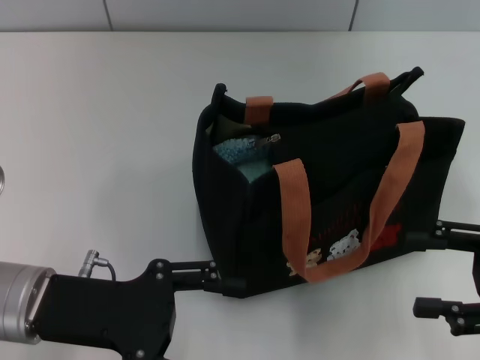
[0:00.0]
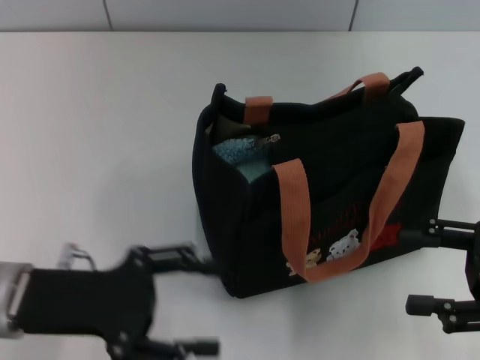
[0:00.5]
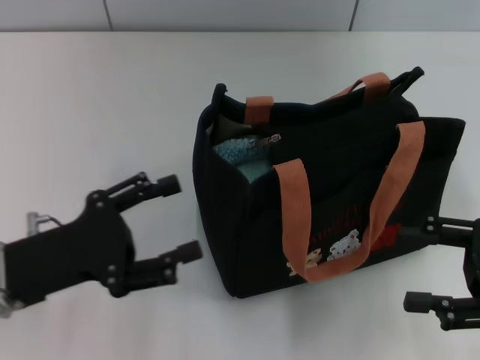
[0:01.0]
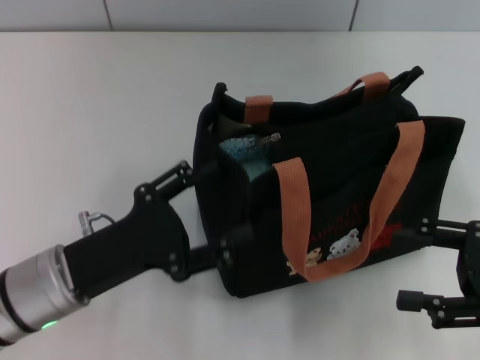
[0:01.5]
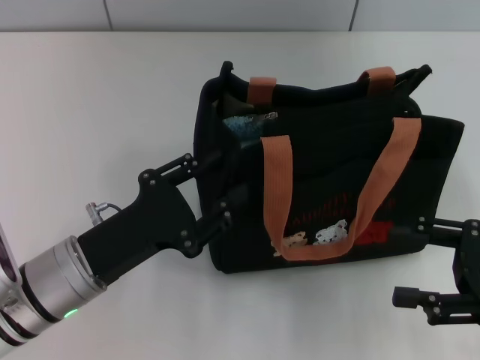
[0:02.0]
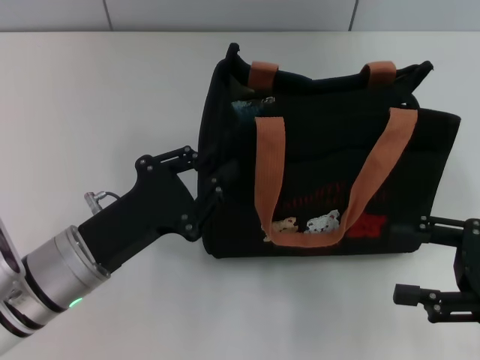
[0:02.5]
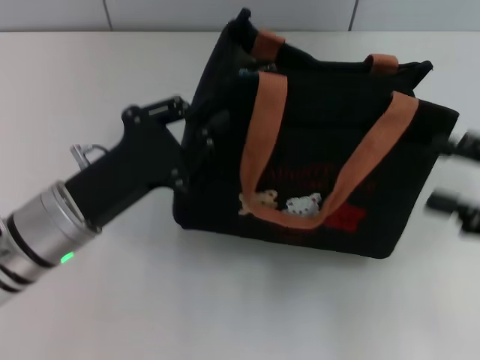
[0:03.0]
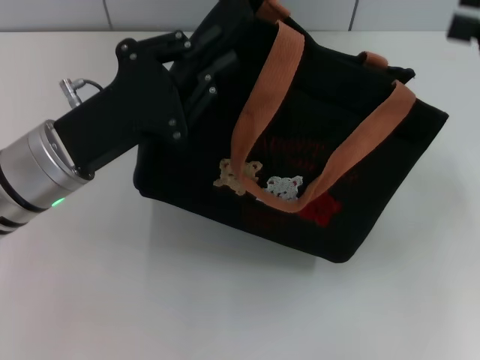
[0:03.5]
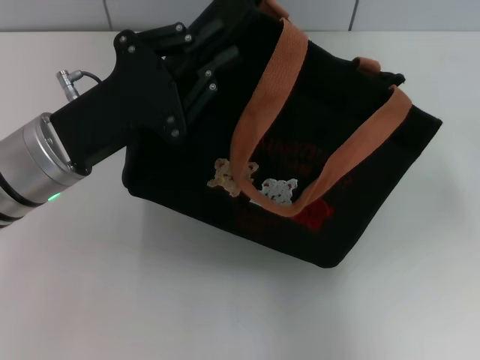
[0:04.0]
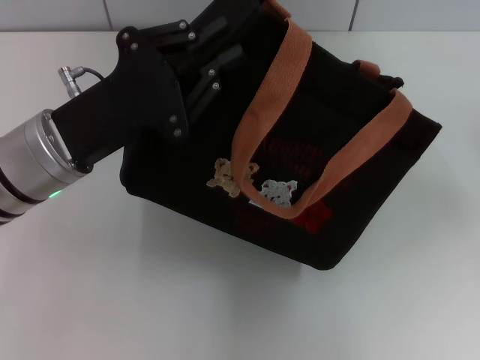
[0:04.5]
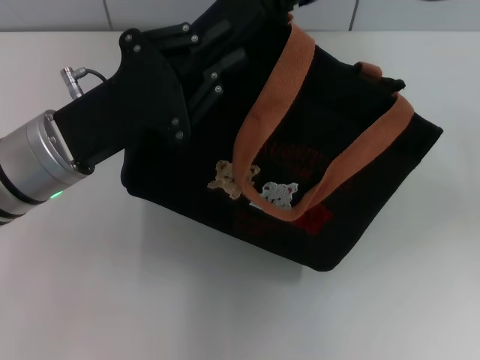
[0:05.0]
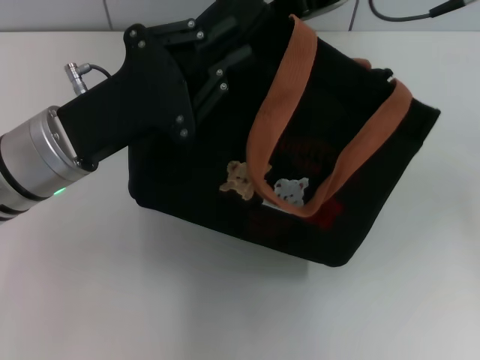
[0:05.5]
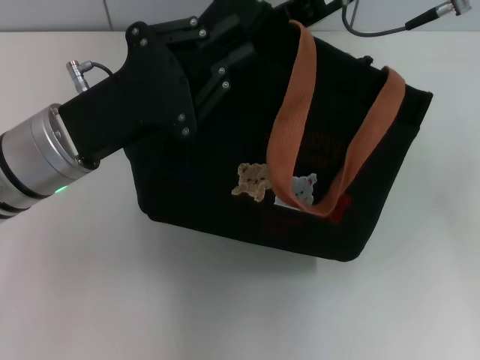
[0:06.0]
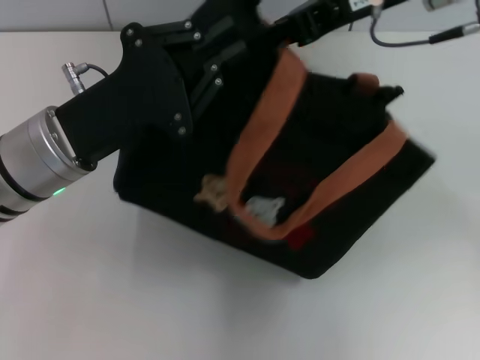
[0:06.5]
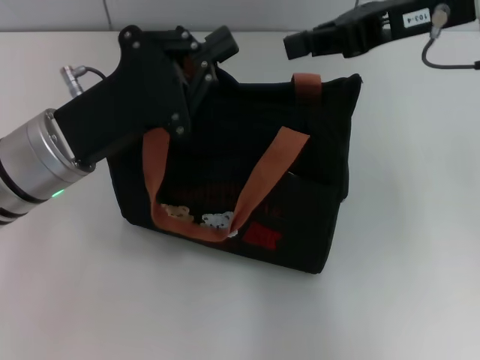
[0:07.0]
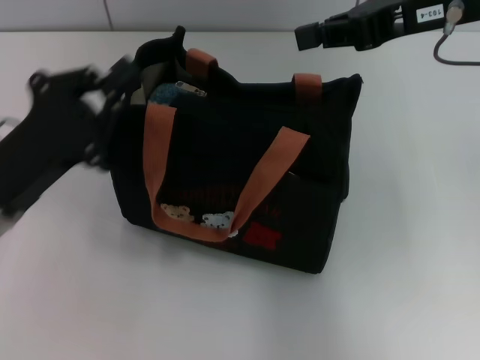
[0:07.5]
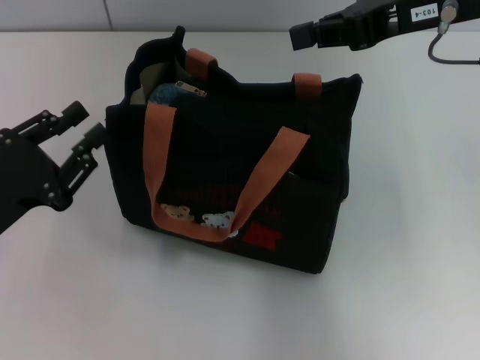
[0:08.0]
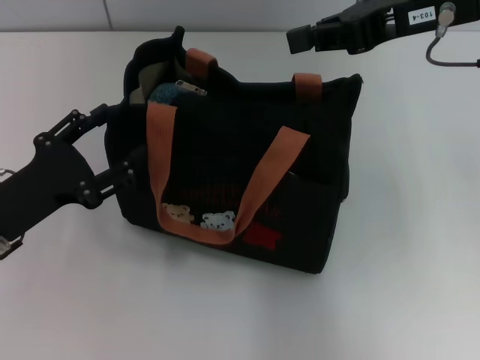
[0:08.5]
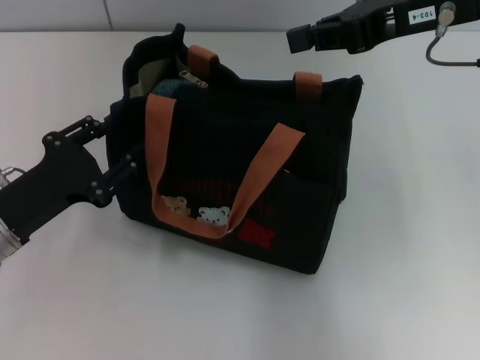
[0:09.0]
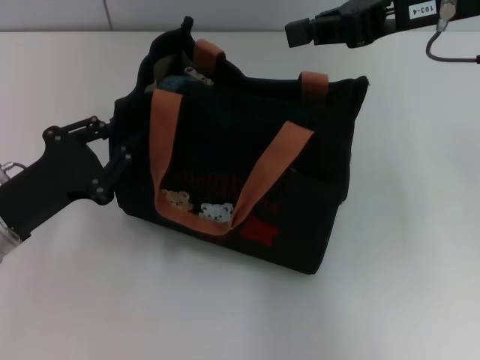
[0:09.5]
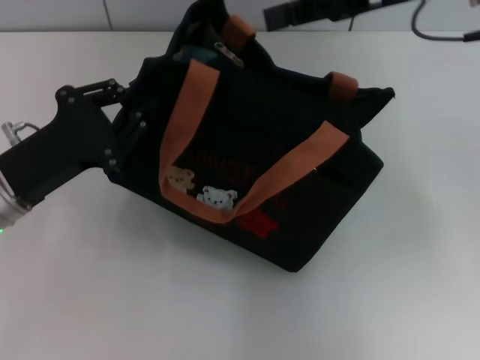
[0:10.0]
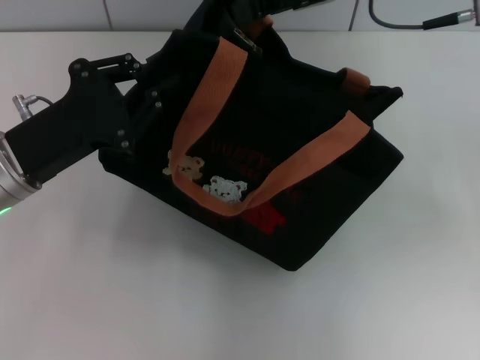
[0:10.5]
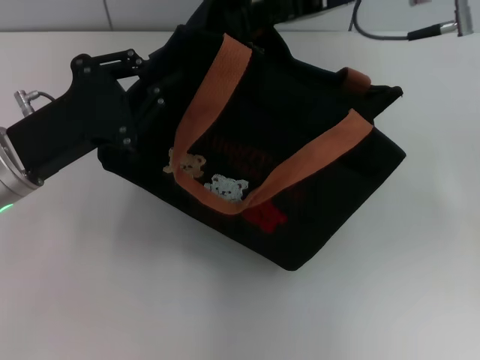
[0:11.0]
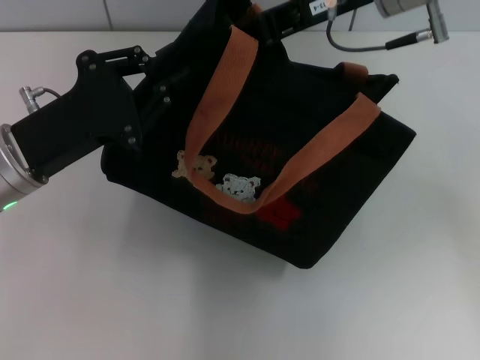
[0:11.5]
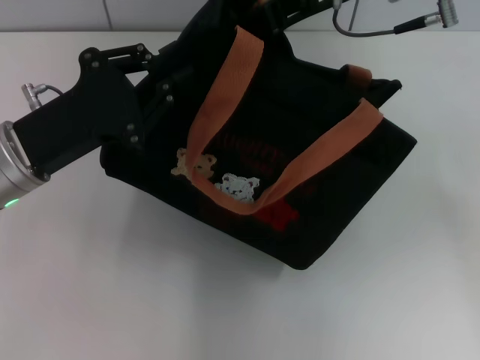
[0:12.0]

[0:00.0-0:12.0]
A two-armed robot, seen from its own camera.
0:00.0 to 0:02.0: The left gripper shifts by some 5 cm.
0:02.0 to 0:04.0: The left gripper travels upward and forward by approximately 10 cm, and closes up; the right gripper heads upward and forward, covering about 25 cm.
0:04.0 to 0:06.0: The right gripper goes some 10 cm to the left, and closes.
0:06.0 to 0:08.0: The left gripper travels to the left, backward and downward by approximately 15 cm; the right gripper goes about 5 cm to the right, and closes its fingers.
0:08.0 to 0:10.0: The left gripper moves about 5 cm, and opens and closes again.
0:10.0 to 0:12.0: The right gripper moves to the left, about 5 cm.

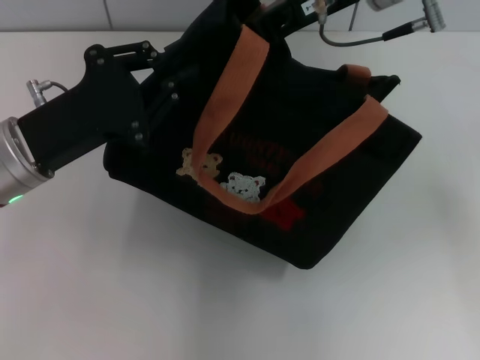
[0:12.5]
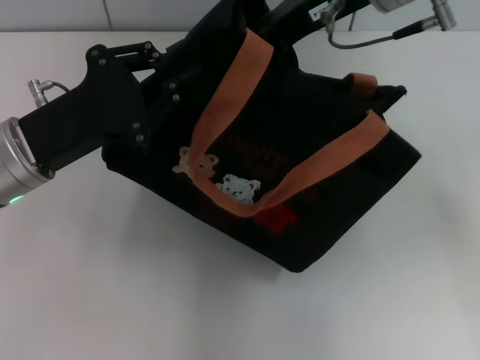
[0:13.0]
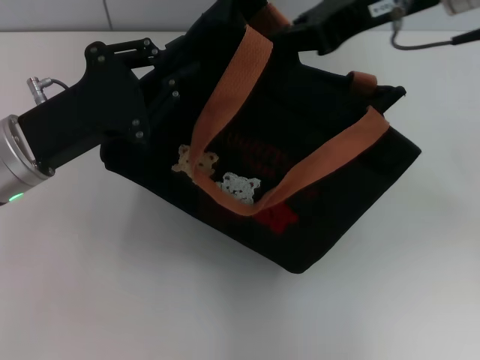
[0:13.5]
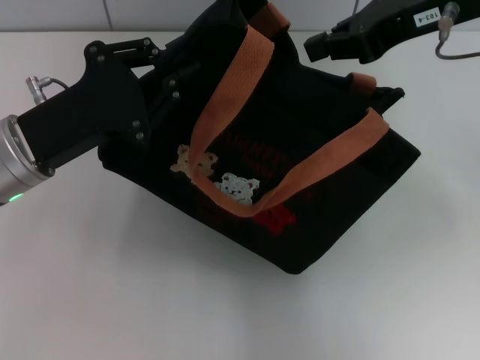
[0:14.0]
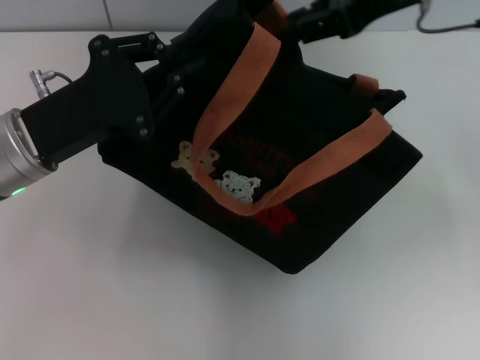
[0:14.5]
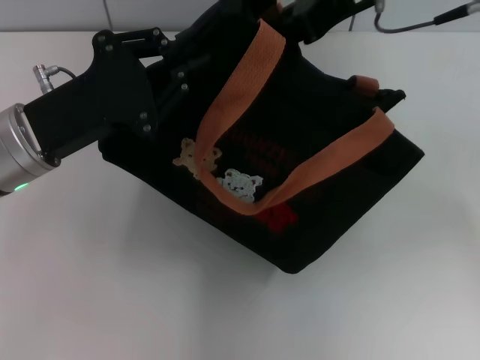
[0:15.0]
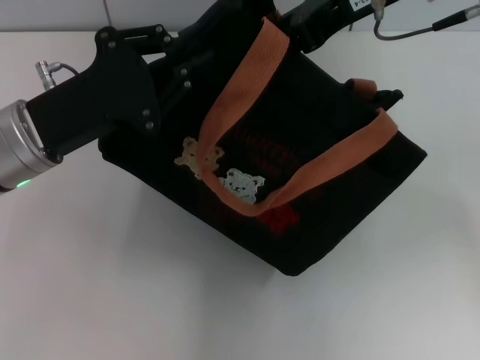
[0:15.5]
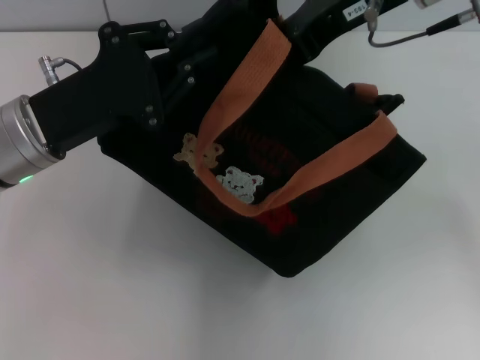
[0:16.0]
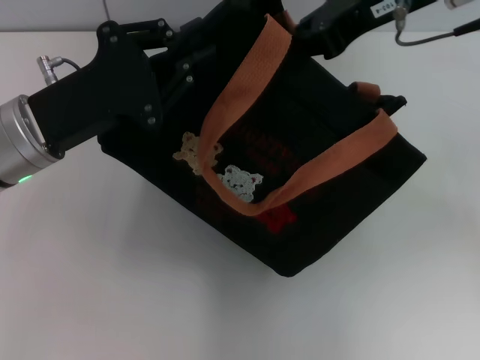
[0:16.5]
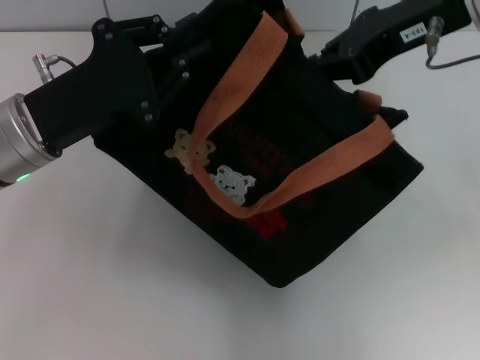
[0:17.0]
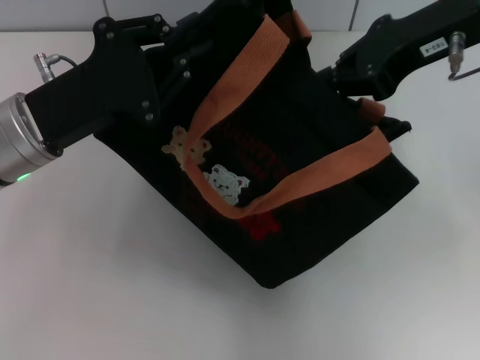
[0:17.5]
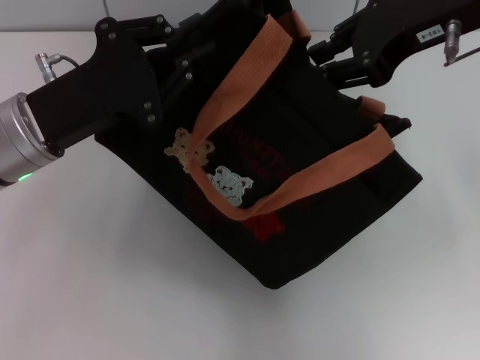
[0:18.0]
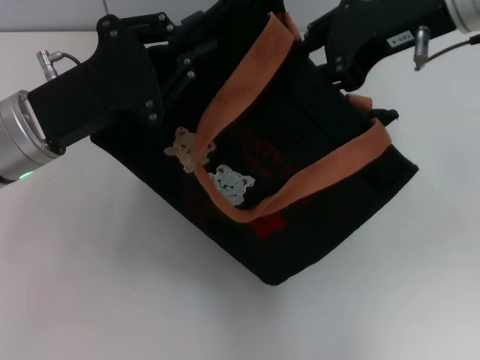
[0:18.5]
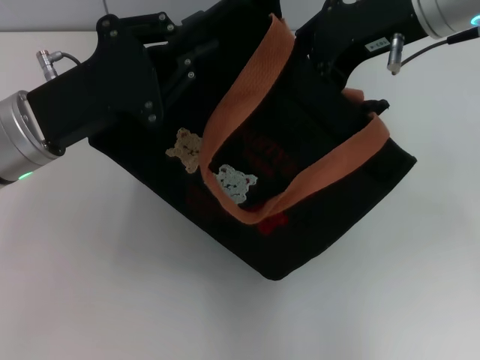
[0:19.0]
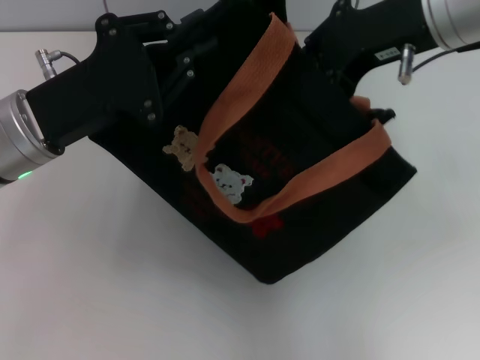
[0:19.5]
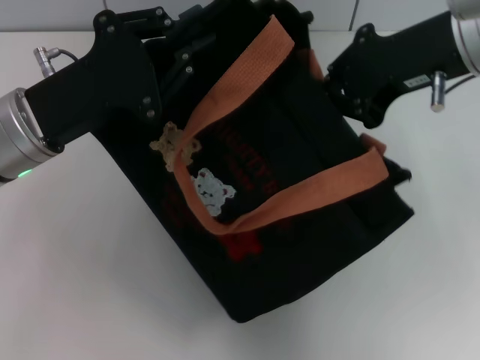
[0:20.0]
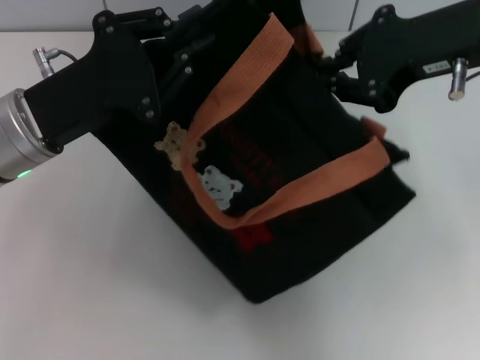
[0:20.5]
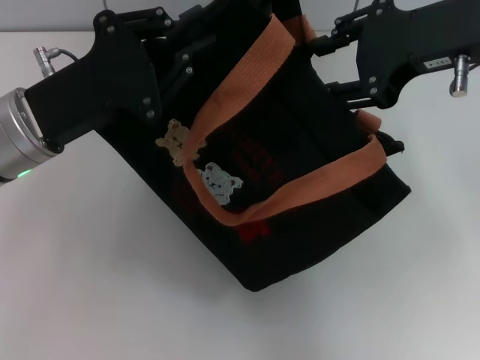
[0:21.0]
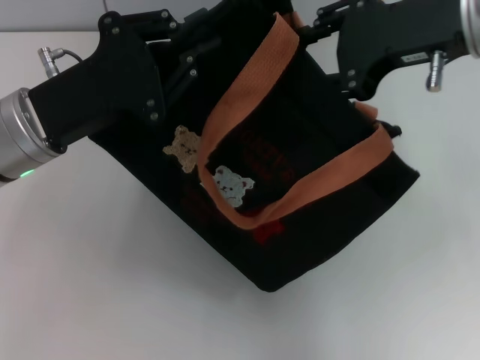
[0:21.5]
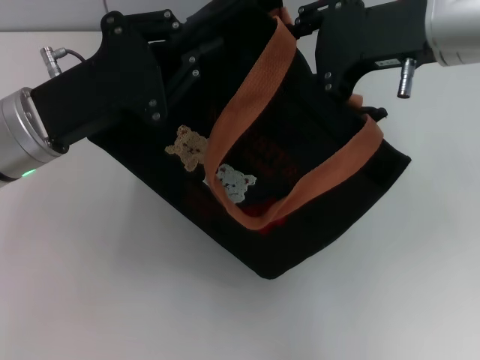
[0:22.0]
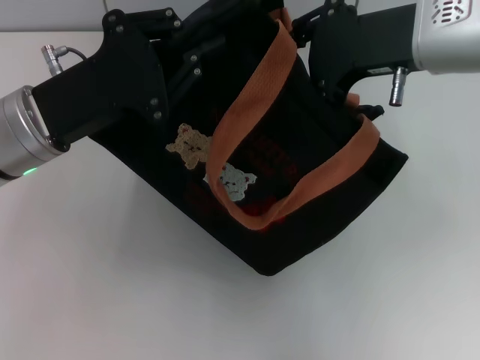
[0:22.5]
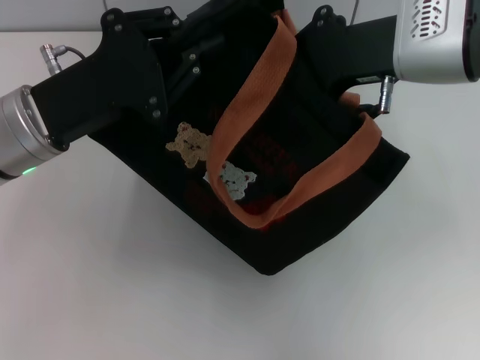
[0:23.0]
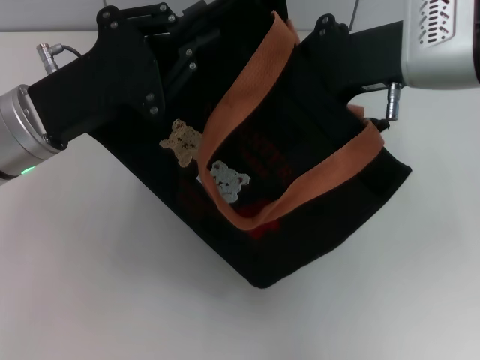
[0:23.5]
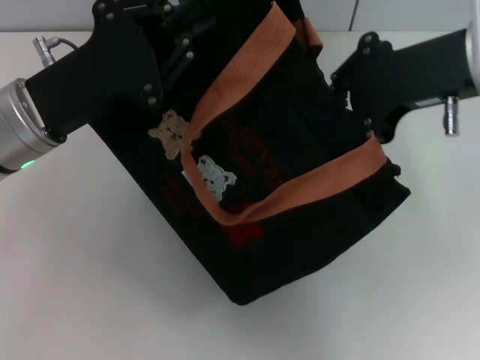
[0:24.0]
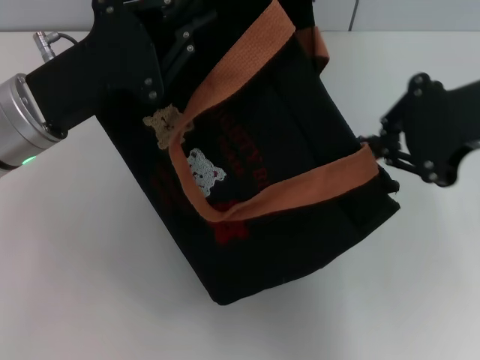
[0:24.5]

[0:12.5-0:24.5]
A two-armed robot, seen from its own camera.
0:12.5 to 0:14.5: The right gripper travels to the right by about 5 cm, and closes.
0:14.5 to 0:16.5: The grippers make only small movements.
0:16.5 to 0:18.5: The right gripper opens its fingers.
0:18.5 to 0:20.5: The right gripper closes up.
0:20.5 to 0:22.5: The right gripper opens up.
0:22.5 to 0:24.5: The right gripper moves to the right, about 5 cm, and closes up.

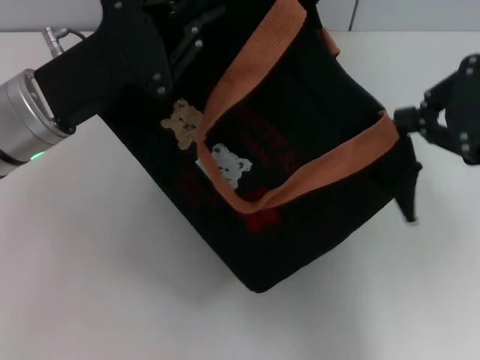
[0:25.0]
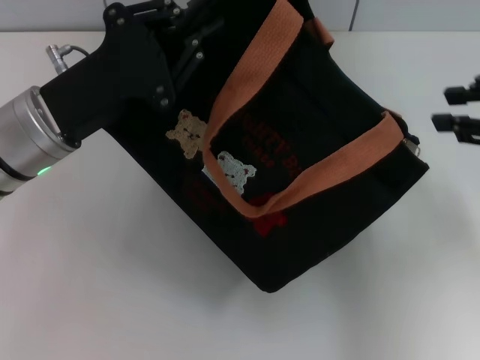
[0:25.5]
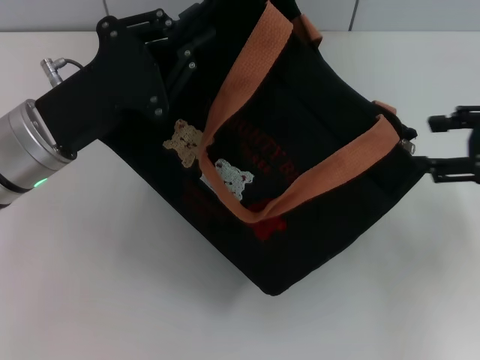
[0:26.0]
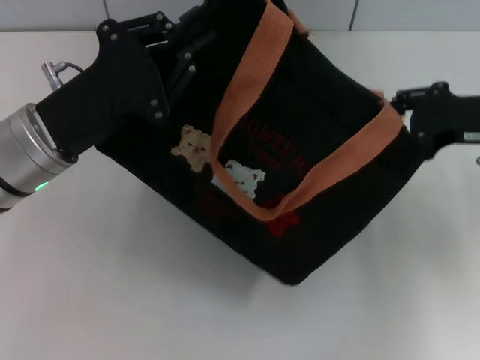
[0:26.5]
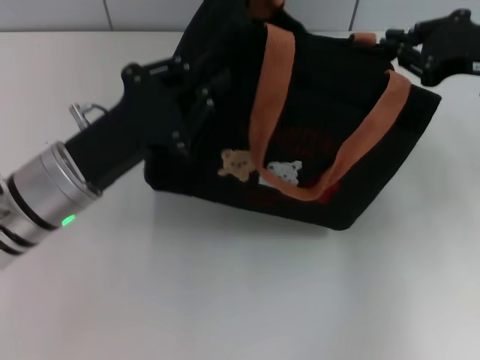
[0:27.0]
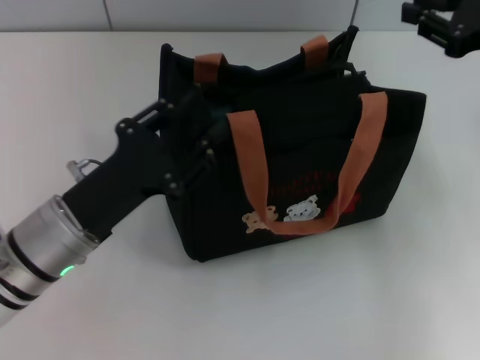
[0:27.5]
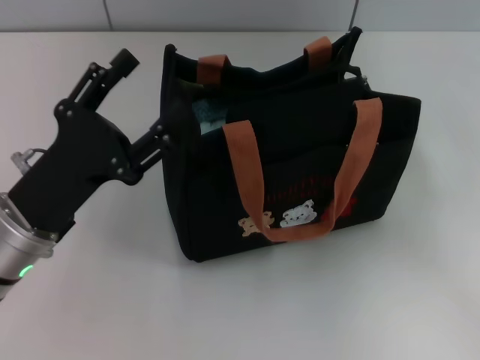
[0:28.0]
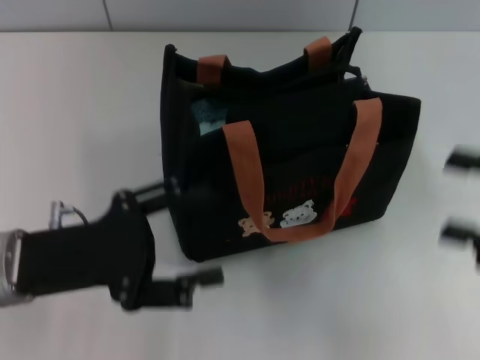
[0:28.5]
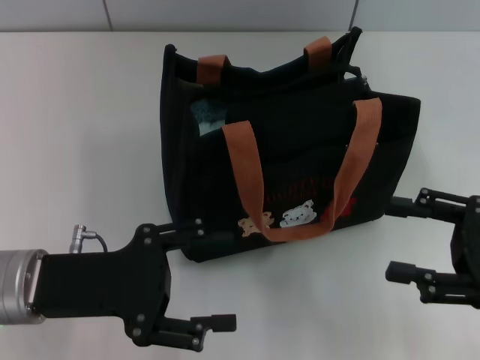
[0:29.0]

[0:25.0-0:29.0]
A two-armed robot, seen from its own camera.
Step, 0:26.0 to 0:27.5: Grab the bag with your left hand.
0:25.0 to 0:27.0: The right gripper goes roughly 10 cm forward and downward, and opens, then closes once more, while the left gripper moves downward, approximately 5 cm.
0:27.0 to 0:29.0: The right gripper travels backward and downward by approximately 15 cm, and opens. Meanwhile the left gripper heads backward, covering some 5 cm, and opens.
